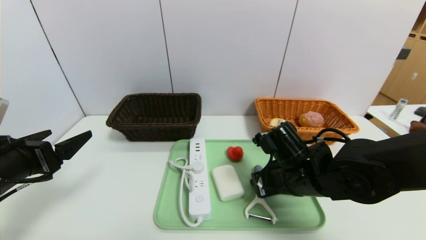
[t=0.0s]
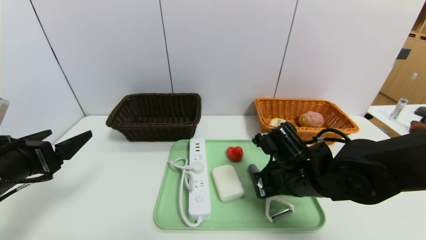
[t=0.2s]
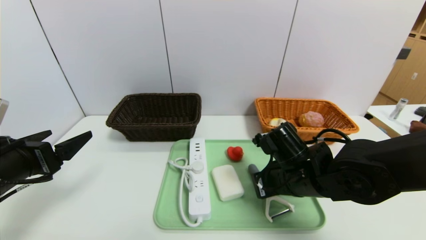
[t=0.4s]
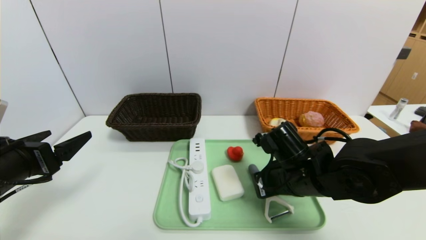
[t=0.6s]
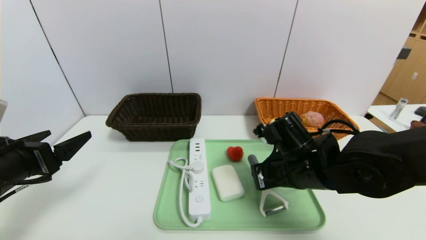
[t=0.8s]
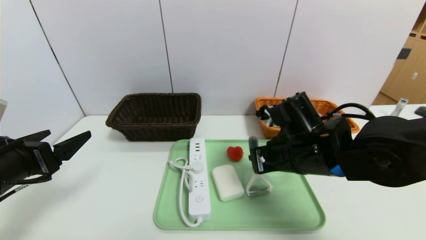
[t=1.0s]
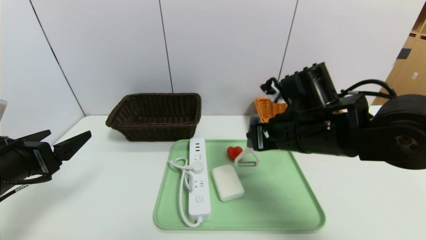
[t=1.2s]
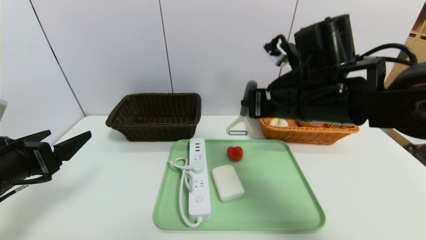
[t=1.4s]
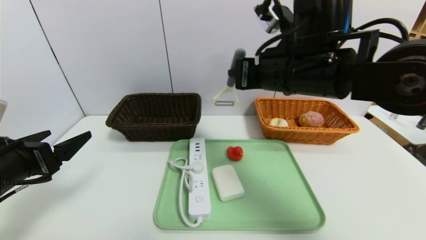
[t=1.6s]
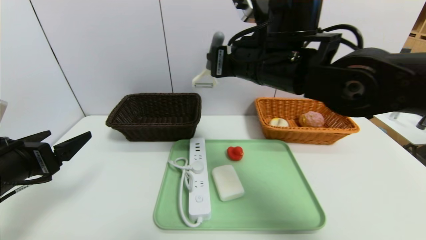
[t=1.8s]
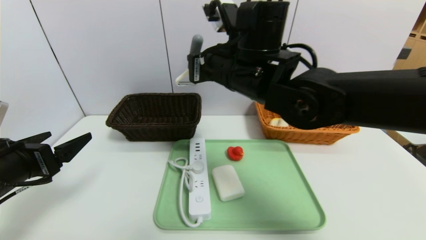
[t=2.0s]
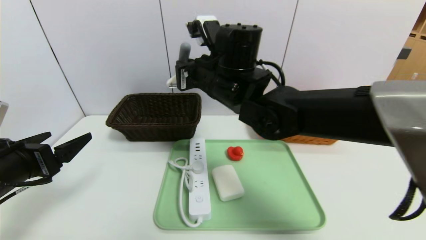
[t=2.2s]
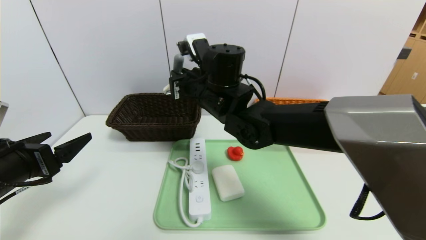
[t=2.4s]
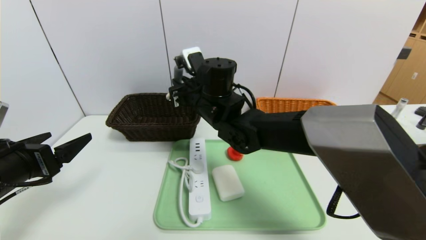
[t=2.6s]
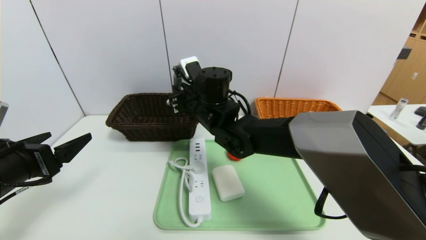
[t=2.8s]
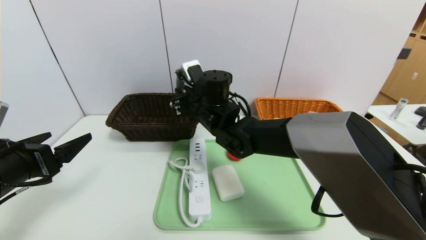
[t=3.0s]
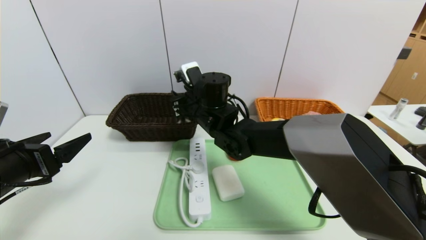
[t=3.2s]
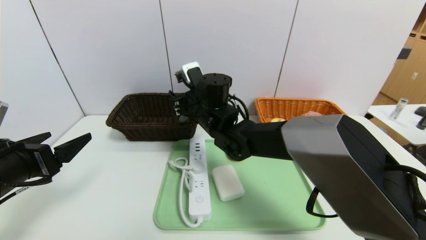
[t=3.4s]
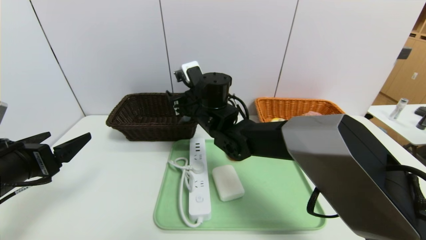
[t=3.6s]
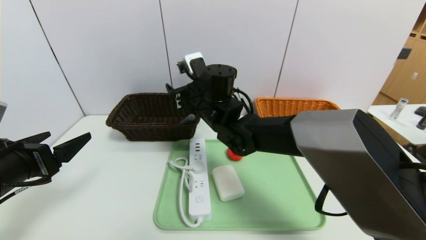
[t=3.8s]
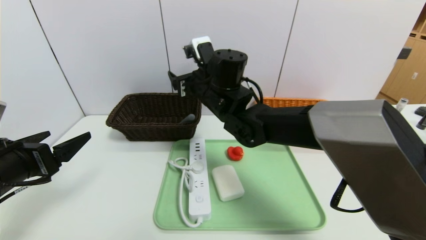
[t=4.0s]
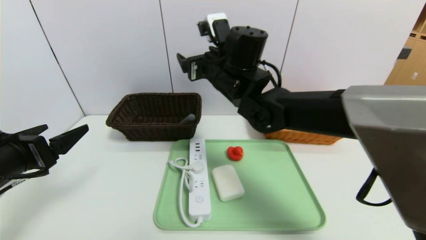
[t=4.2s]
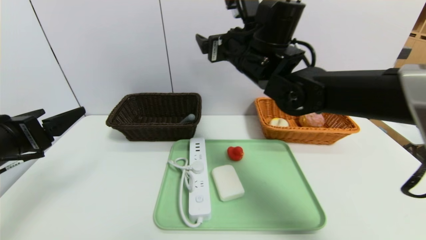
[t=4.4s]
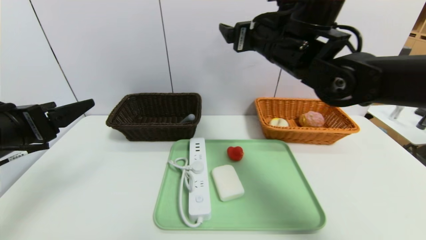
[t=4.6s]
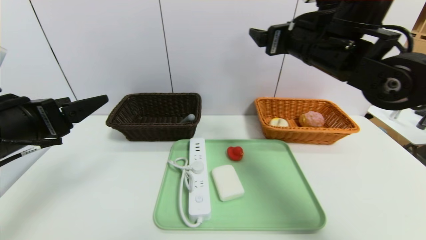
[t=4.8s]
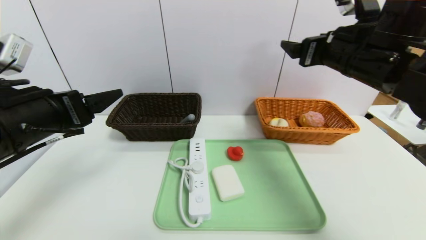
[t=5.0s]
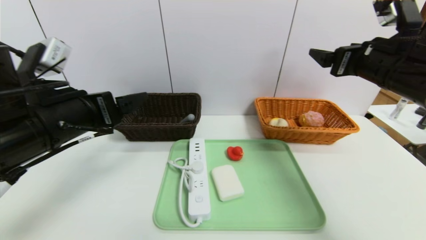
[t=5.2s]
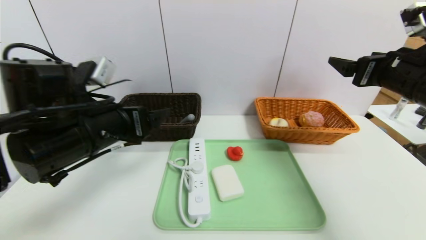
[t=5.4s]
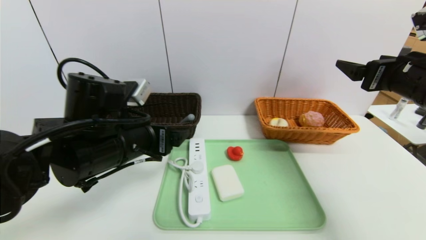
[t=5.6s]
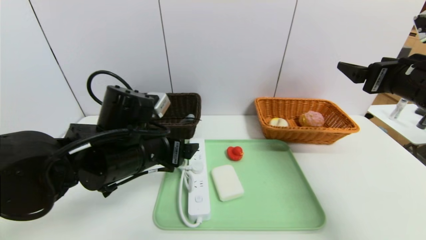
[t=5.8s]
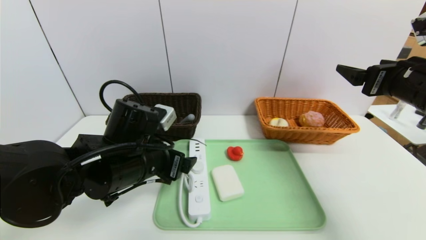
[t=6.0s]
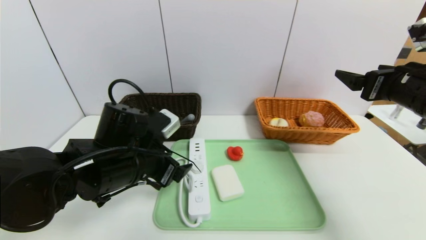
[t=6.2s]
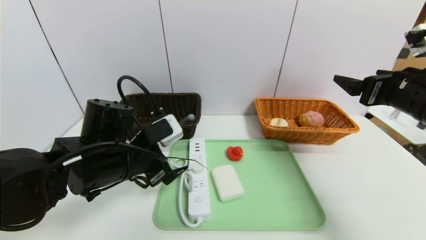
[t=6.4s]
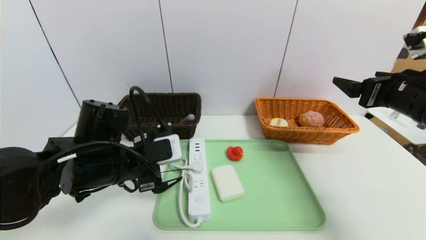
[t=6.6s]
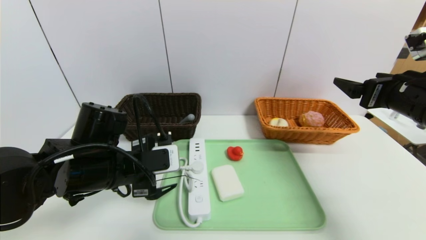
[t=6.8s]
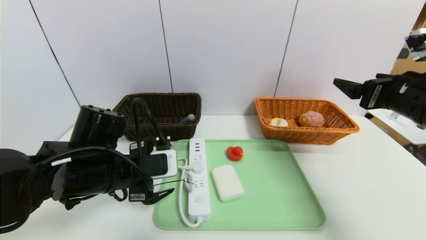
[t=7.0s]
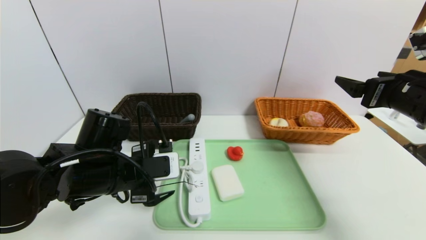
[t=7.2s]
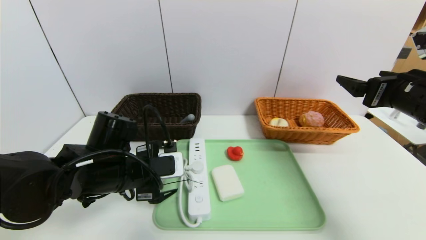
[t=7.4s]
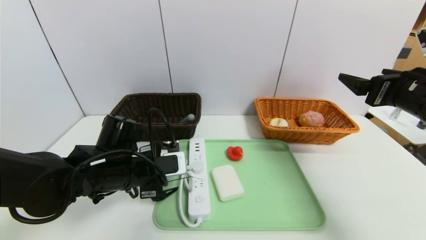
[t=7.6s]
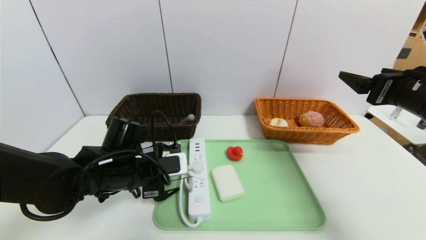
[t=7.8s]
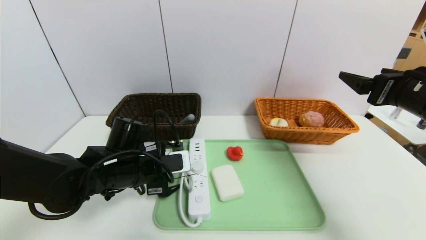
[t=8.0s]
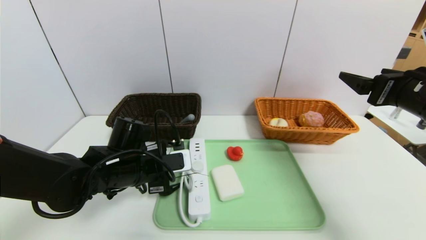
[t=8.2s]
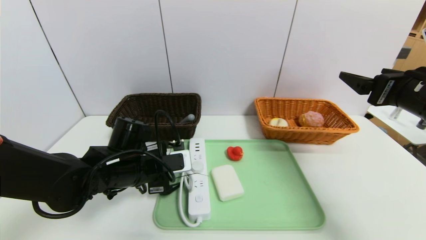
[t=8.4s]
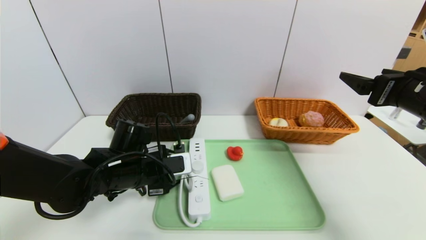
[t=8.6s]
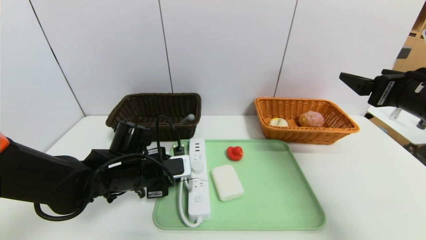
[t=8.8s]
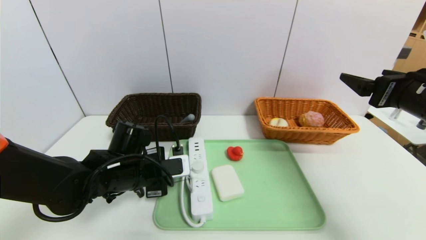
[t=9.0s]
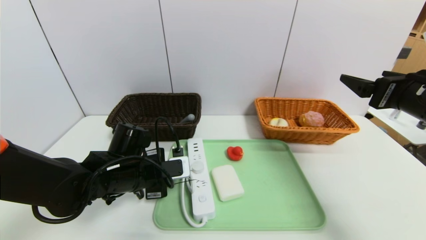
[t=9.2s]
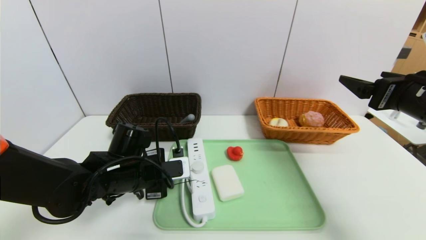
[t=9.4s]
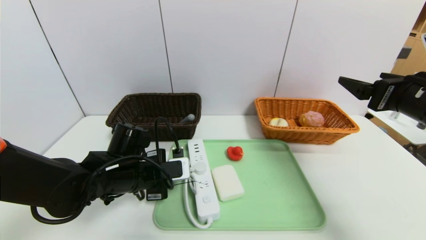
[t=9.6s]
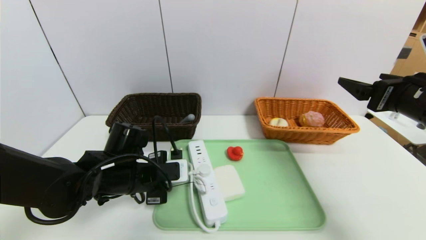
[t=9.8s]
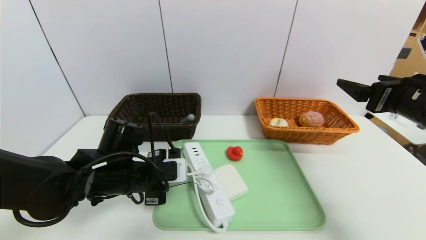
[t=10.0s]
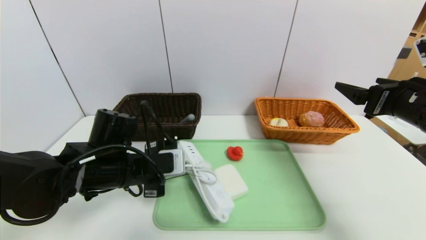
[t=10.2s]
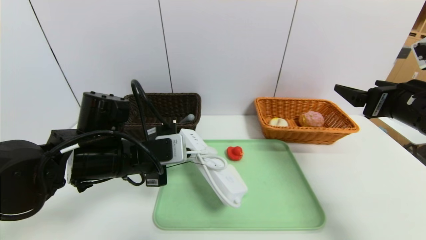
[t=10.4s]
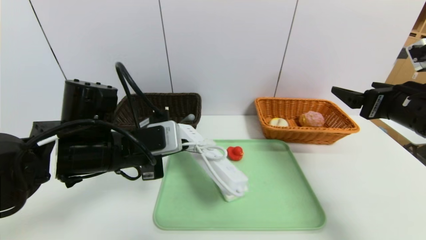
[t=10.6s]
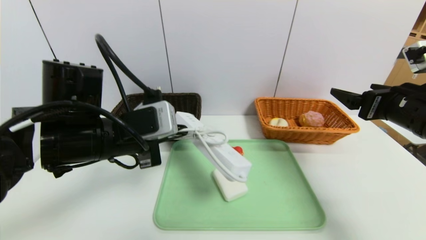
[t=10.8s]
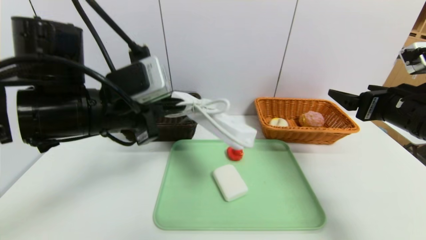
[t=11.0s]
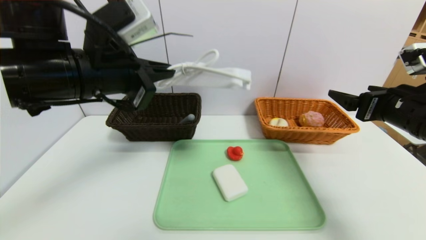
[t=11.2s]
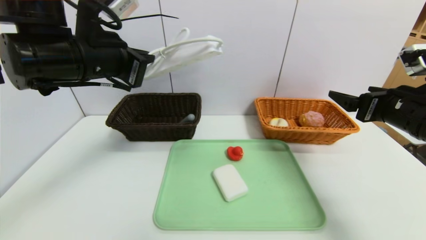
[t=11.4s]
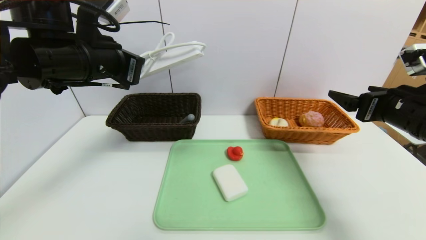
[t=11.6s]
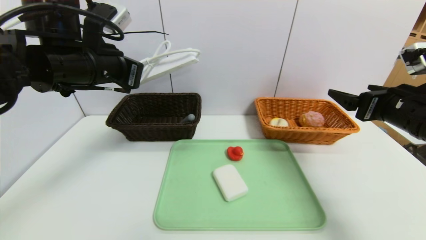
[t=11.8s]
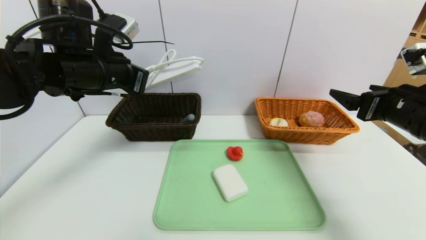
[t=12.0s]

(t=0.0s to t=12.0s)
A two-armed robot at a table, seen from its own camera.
Task of the whole recording: place the food in the right basket with the right gripper, and place the non food items in the left basket with the left gripper.
t=0.0s - t=1.6s: The right gripper goes roughly 20 cm upward.
t=1.6s - t=3.0s: The right gripper moves to the left, downward and forward, roughly 20 cm.
t=3.0s - t=4.4s: The right gripper shifts about 15 cm upward and to the right, and opens its fingers.
t=4.4s - t=6.0s: The left gripper goes about 20 cm to the right and forward. The right gripper goes approximately 25 cm to the right and backward.
t=6.0s - t=7.6s: The left gripper changes place by some 5 cm.
t=7.6s - t=9.0s: The left gripper closes.
t=9.0s - t=10.4s: The left gripper heads upward, covering approximately 10 cm.
t=10.4s - t=12.0s: The left gripper travels upward and forward by roughly 15 cm.

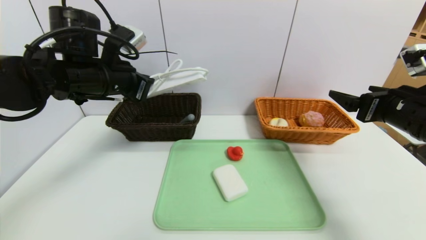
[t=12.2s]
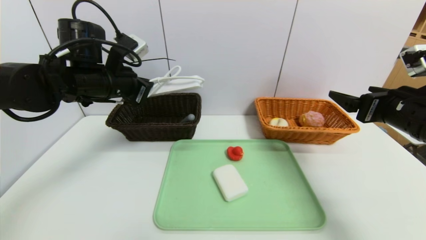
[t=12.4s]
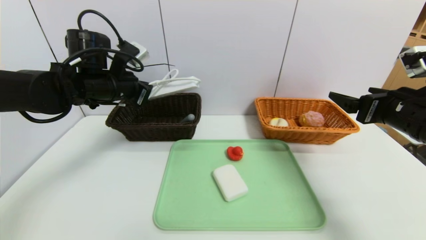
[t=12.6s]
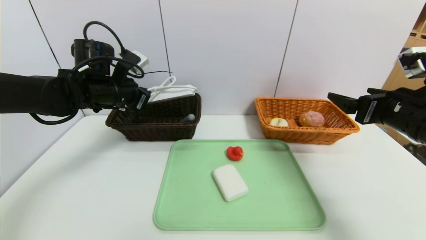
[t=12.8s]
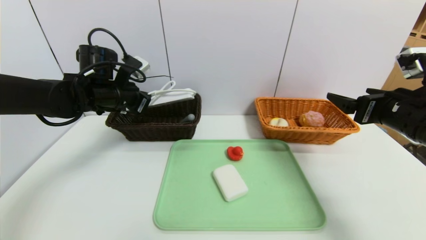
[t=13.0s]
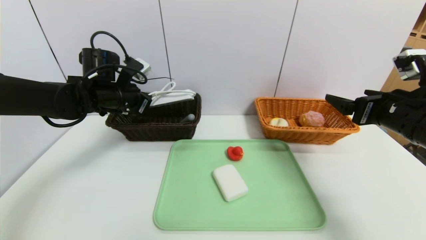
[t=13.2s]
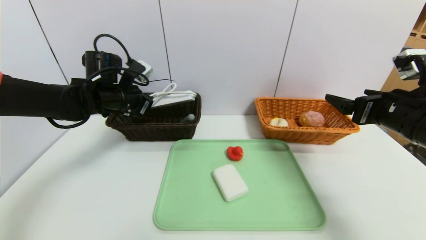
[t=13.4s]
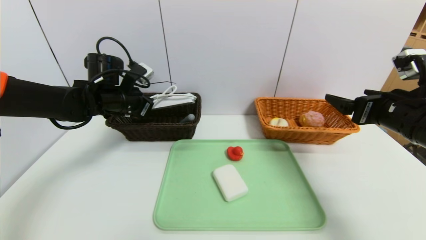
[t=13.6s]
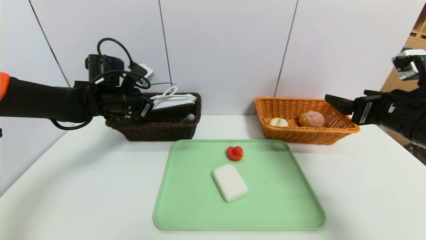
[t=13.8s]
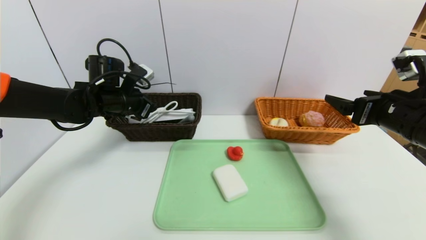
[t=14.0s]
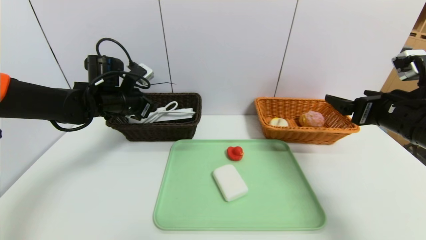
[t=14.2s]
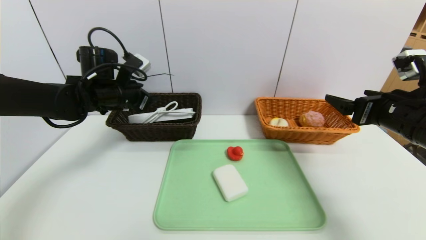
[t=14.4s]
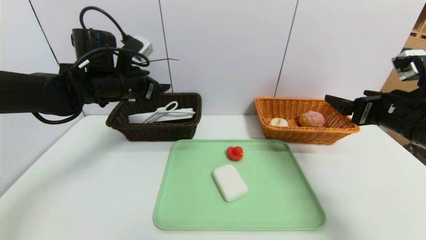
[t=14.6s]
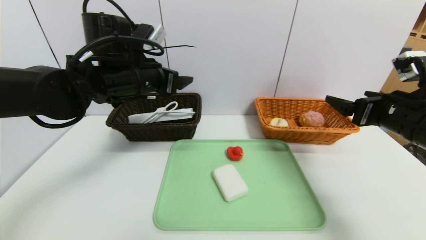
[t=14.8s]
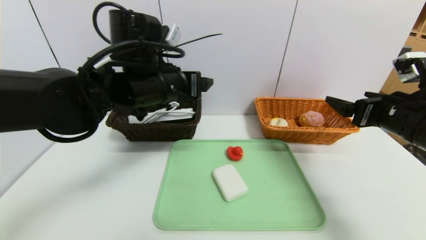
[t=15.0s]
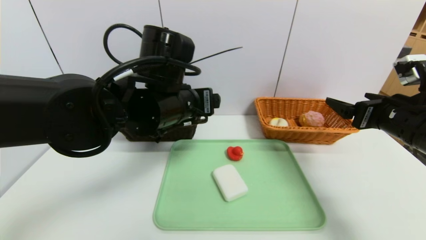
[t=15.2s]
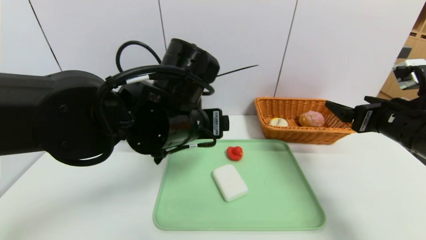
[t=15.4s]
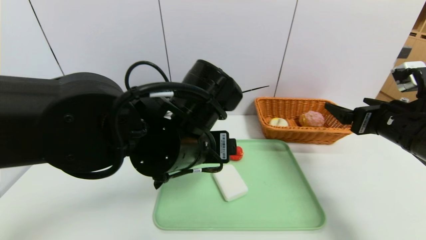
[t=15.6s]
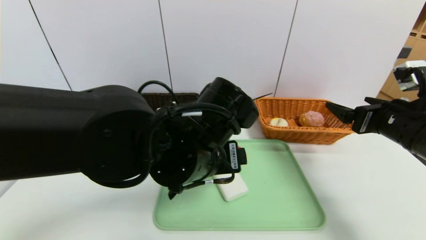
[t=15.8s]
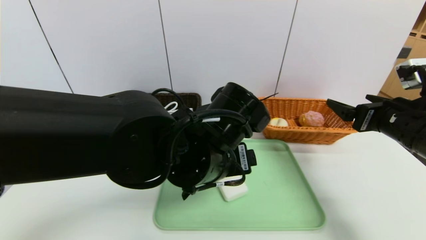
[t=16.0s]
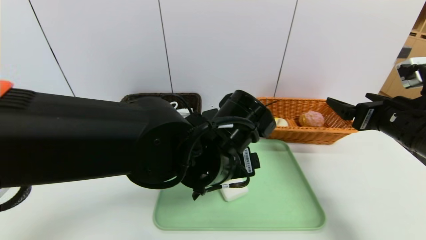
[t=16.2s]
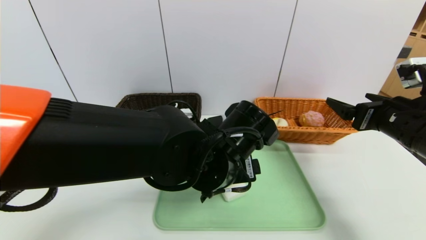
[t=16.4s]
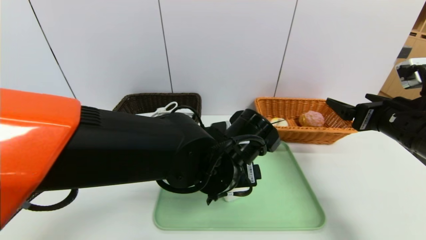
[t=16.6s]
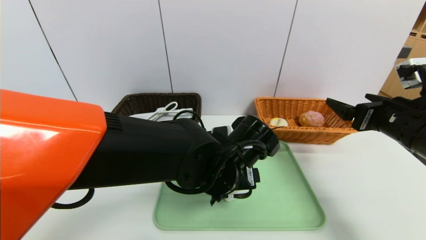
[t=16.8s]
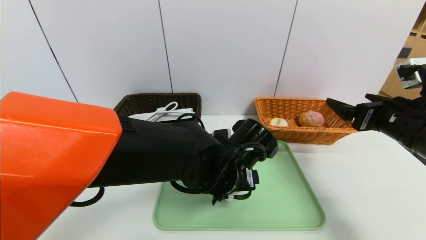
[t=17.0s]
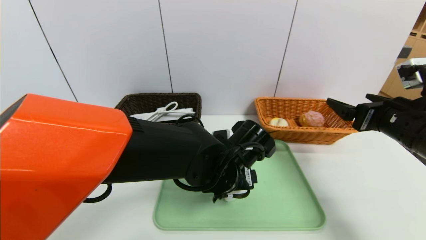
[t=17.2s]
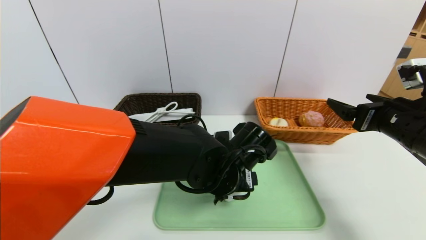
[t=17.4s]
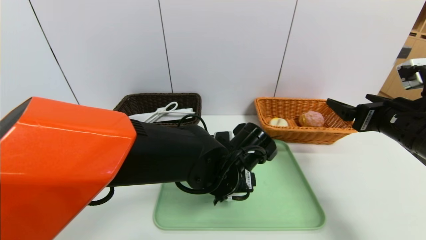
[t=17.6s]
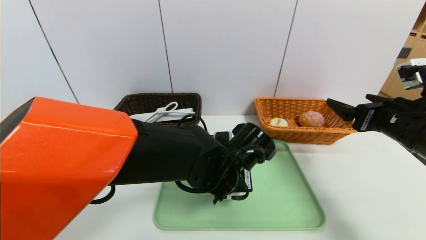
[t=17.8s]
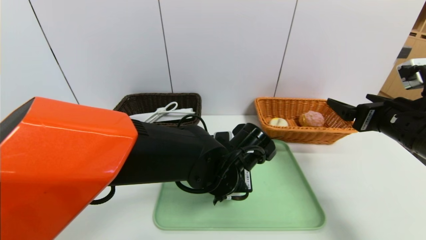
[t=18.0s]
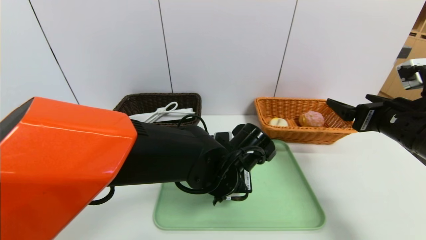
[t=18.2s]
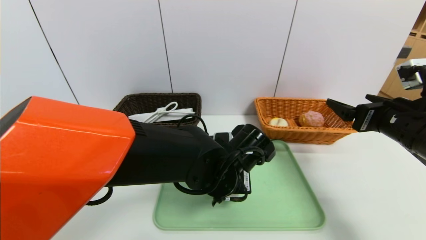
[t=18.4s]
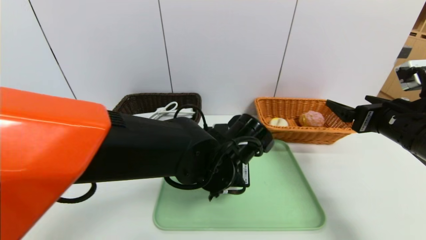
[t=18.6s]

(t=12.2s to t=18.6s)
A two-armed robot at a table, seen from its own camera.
Task of the whole recording: place the food in the right basket with the right gripper, and place the non food items in the left basket with the left gripper.
Step, t=12.2s - t=14.2s: Grasp the power strip and put it in the left basket.
t=12.2s - t=13.8s: The left gripper is displaced downward and forward by approximately 10 cm.
t=13.8s - t=15.4s: The left gripper moves to the right and backward, about 25 cm, and opens.
t=15.4s - t=17.0s: The left gripper heads downward and to the right, covering some 15 cm.
t=17.0s - t=18.6s: The left gripper closes up.
